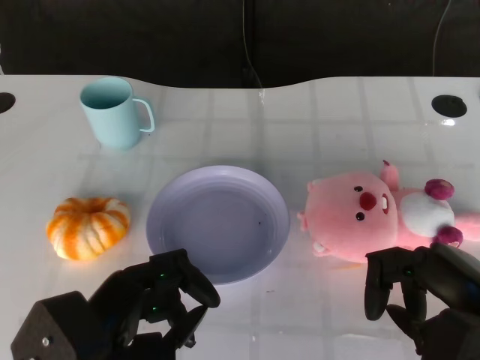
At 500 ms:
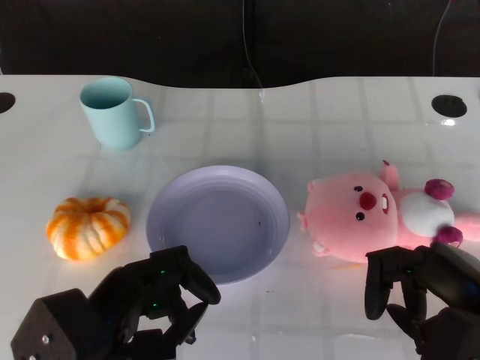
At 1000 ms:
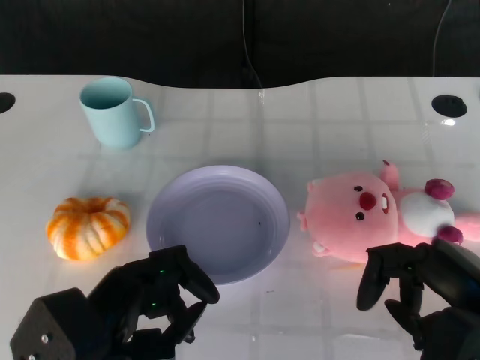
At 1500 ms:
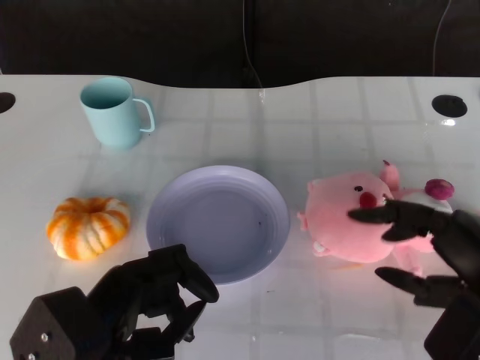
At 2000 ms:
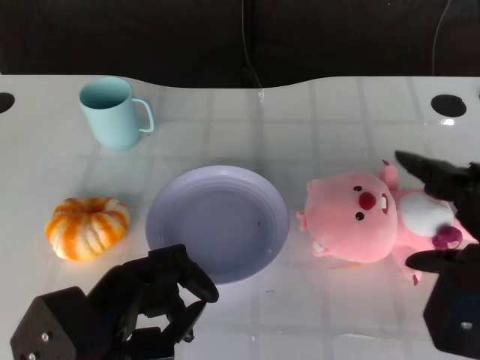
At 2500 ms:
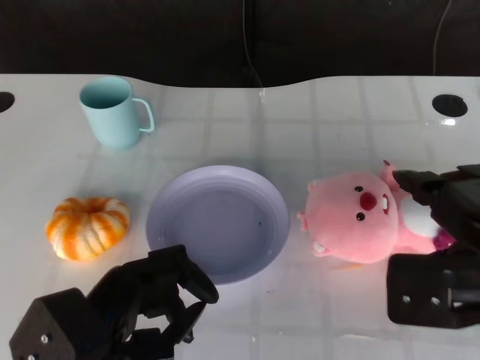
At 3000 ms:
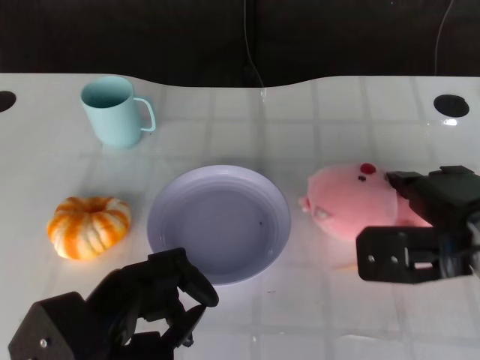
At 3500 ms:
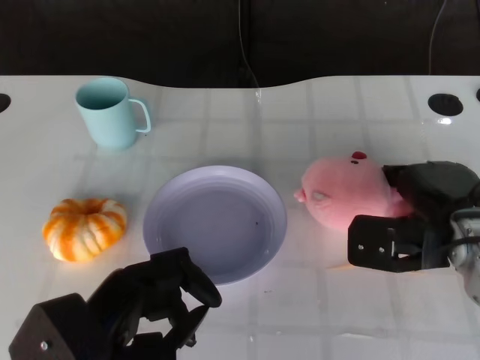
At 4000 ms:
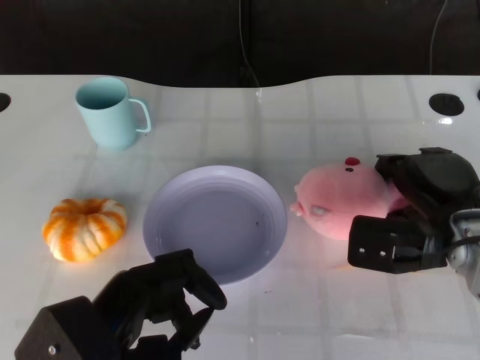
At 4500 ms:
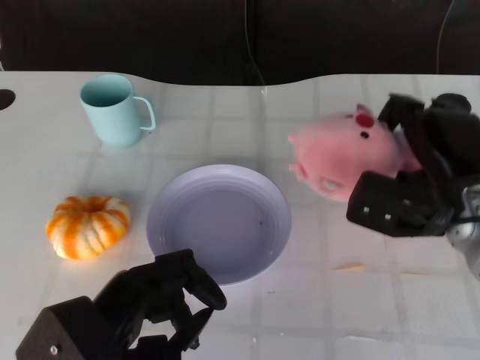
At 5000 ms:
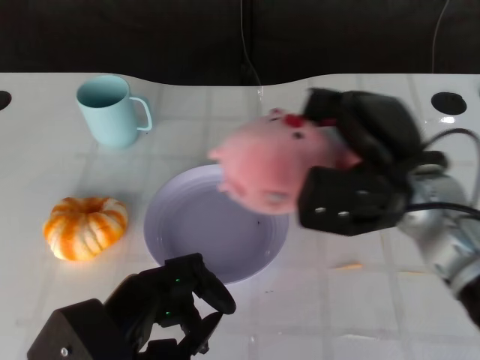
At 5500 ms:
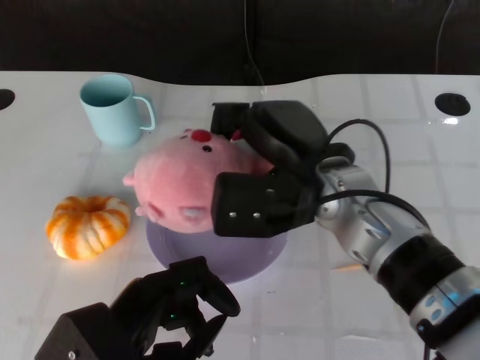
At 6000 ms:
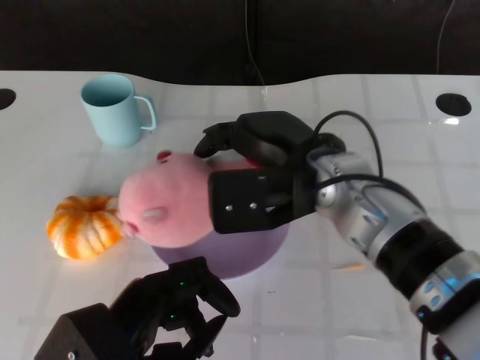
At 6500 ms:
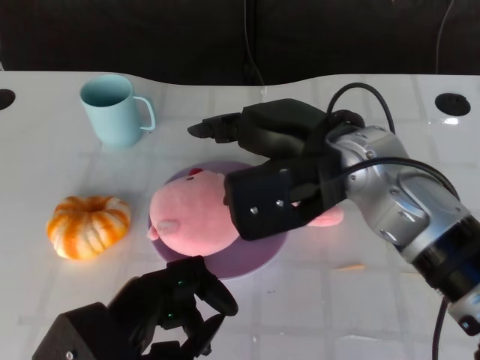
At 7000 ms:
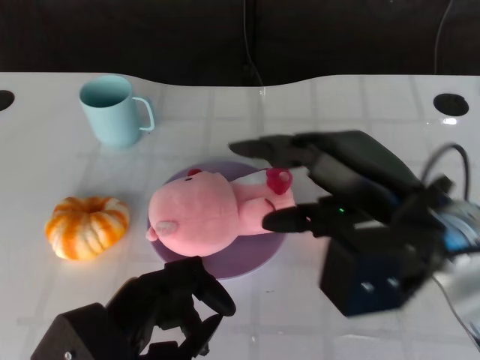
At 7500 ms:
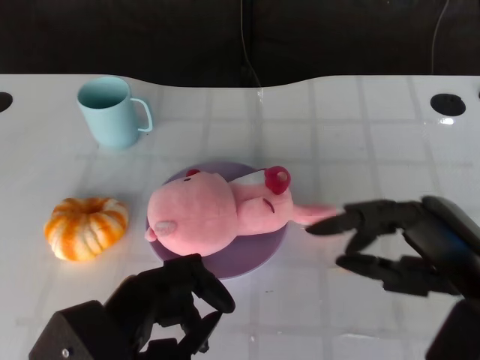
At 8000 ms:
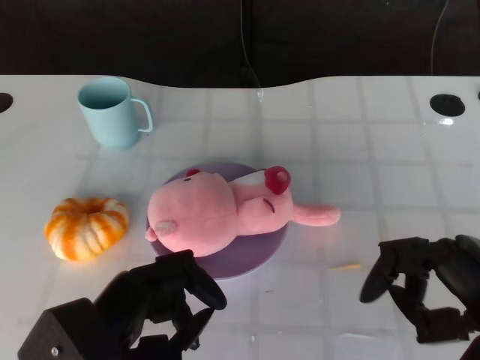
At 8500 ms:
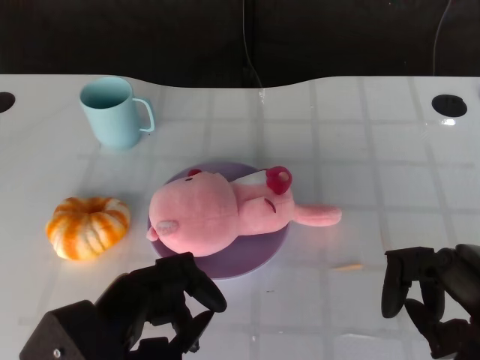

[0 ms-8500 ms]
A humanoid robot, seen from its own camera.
Task of the whole recording: Pick up the doll on the other side of the plate and place it into the plate.
Step, 1000 ms to 4000 ms: Grasp the pink doll with the right gripper.
Step, 4500 ms to 6000 ms: Place the pink doll into the plate with the right gripper.
2000 ms to 4000 ms: The right hand heads forward and downward, covering roughly 15 cm.
4000 ms to 6500 ms: The right hand travels upward and to the left by some 15 cm.
6500 ms to 8500 ms: The right hand travels to the right, backward and downward by approximately 25 cm.

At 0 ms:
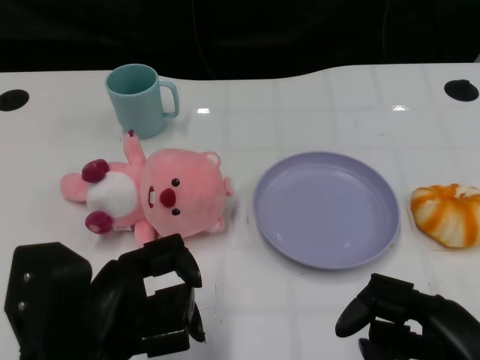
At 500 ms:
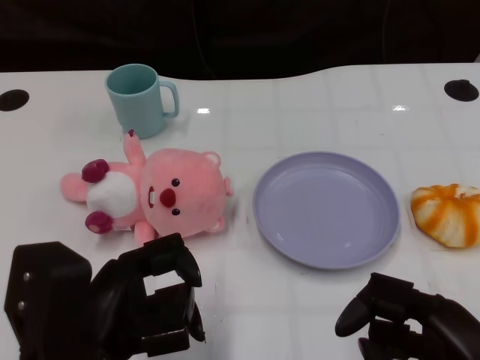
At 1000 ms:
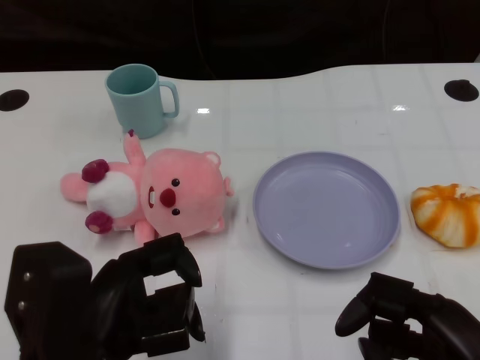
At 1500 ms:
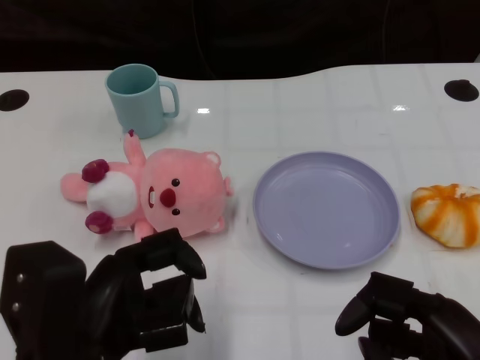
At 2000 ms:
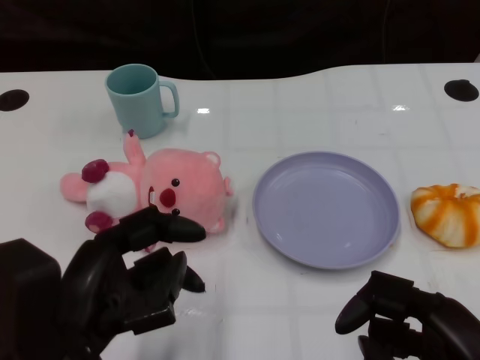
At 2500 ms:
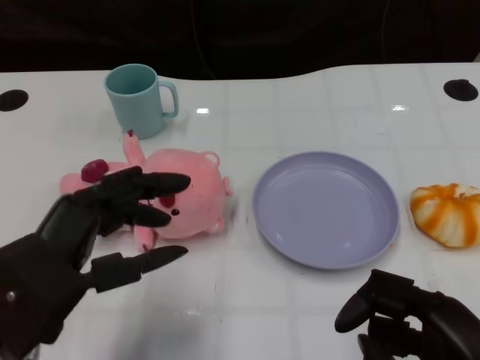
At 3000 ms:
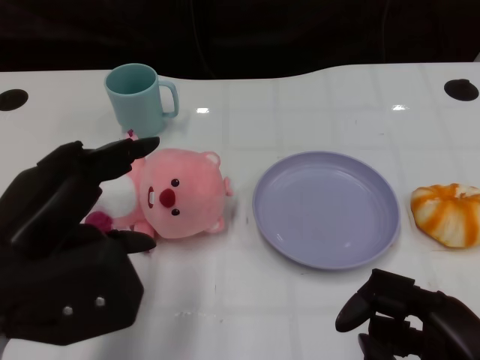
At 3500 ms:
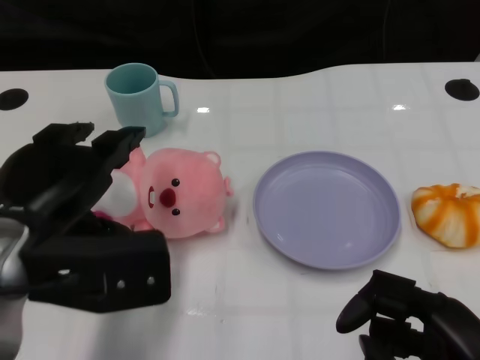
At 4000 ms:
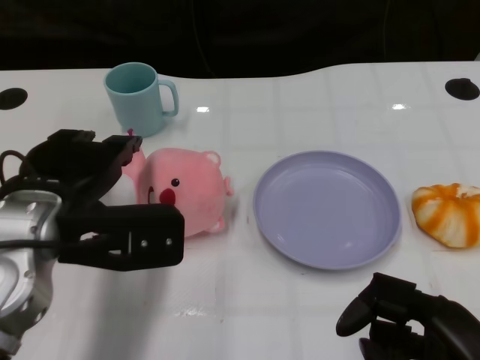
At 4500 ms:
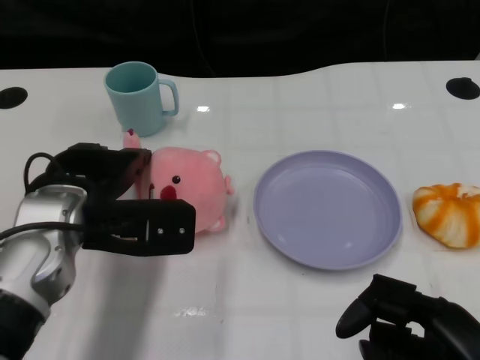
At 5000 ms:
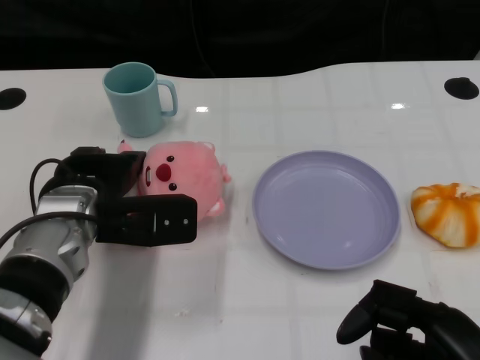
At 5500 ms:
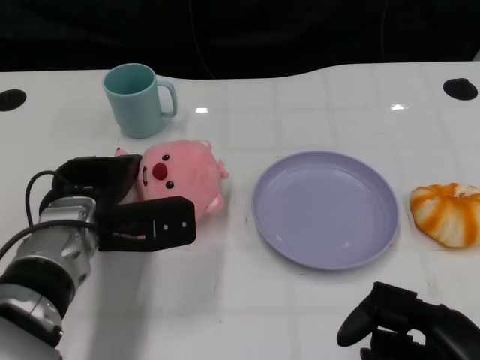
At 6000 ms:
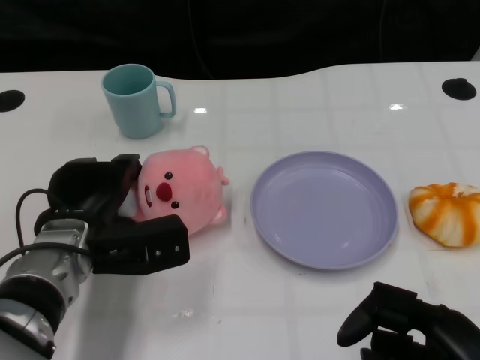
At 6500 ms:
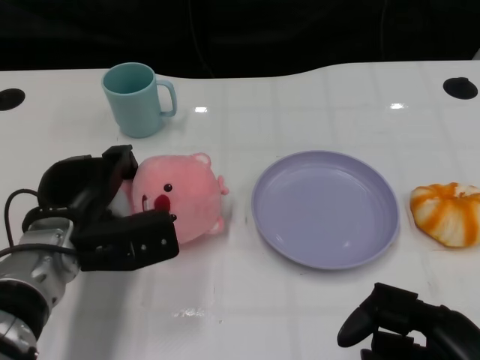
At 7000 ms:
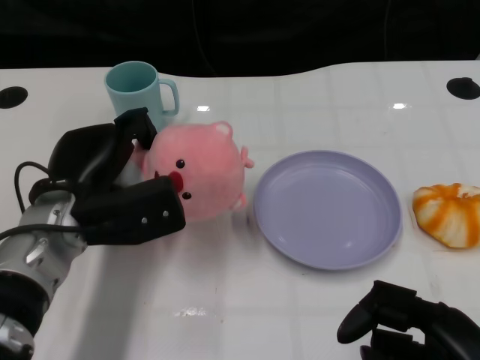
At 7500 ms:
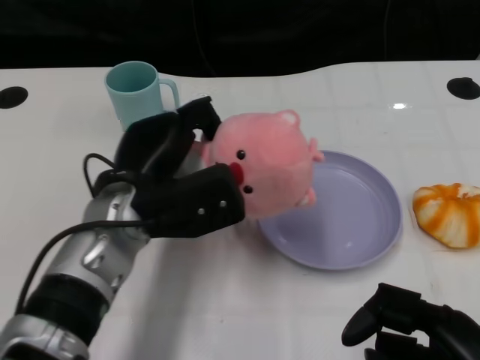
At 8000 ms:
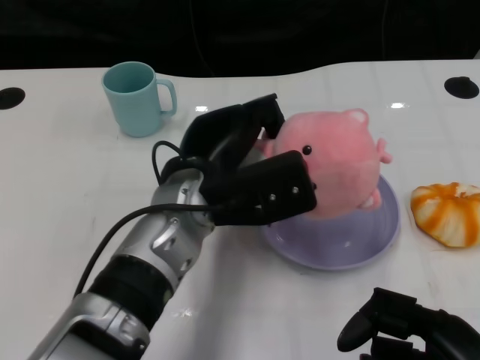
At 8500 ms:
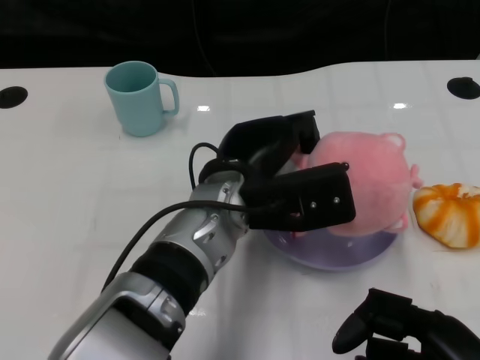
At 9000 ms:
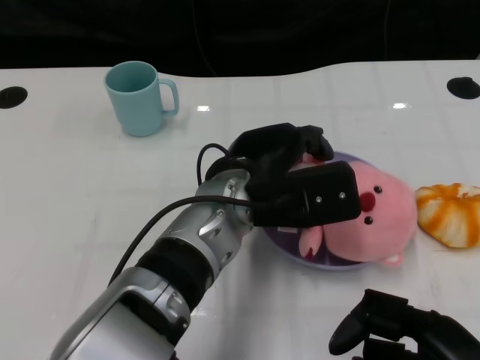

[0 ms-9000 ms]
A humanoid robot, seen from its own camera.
Task of the whole recording: Pick up the doll on one side of the plate and place it into the plate.
Step, 1500 ms to 6500 ms: Grasp the pink doll with the left gripper.
2000 ms to 4500 ms: The left hand heads forward, covering roughly 15 cm.
7000 ms to 9000 ms: The left hand moves to the right, roughly 15 cm.

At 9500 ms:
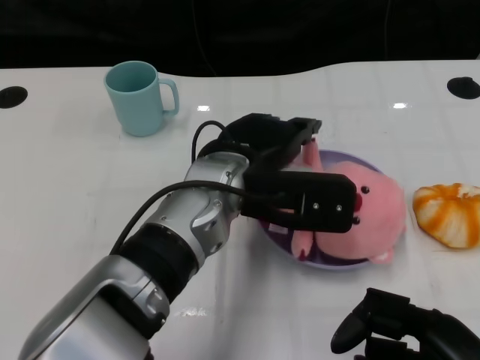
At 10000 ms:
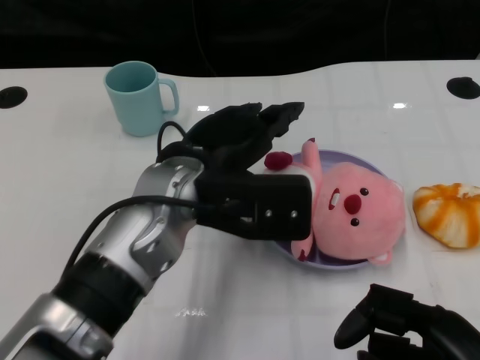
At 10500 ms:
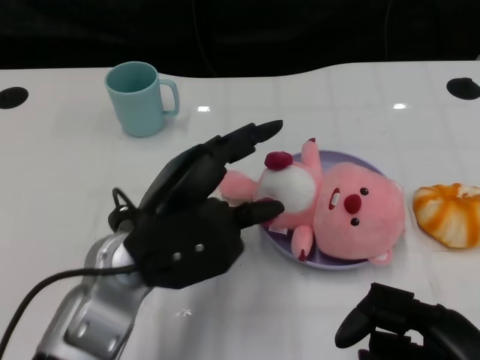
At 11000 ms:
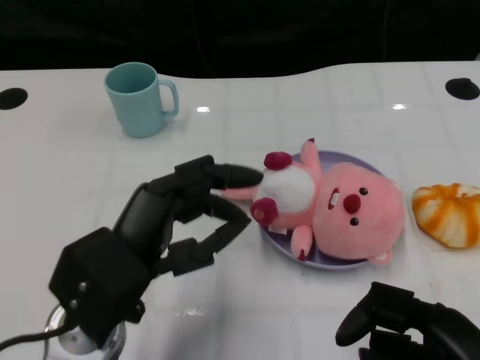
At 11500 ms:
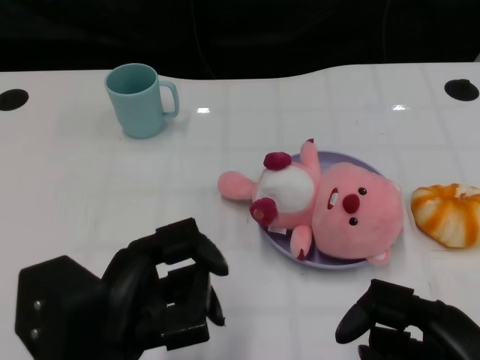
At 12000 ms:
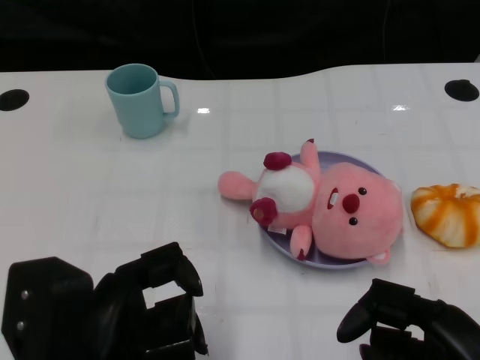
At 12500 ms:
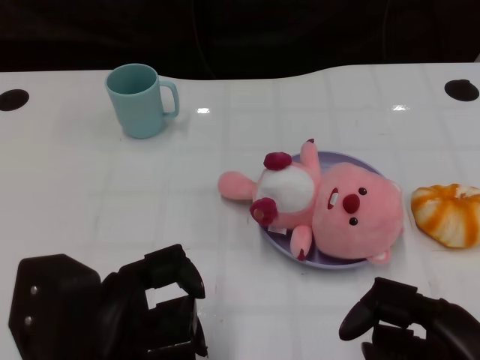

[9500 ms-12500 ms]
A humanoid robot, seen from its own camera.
Task of the whole recording: Pick up the doll on one side of the plate and place it into the plate.
9500 ms to 11000 ms: The left hand is displaced to the left and backward by approximately 15 cm.
11000 ms to 12500 ms: The left hand shifts about 5 cm backward.

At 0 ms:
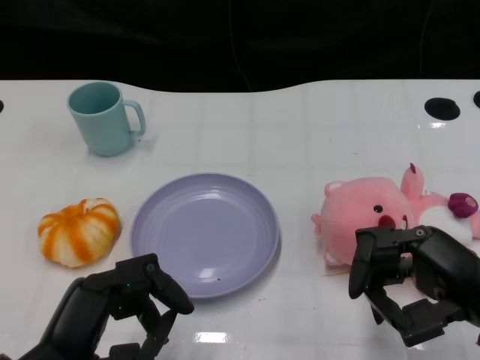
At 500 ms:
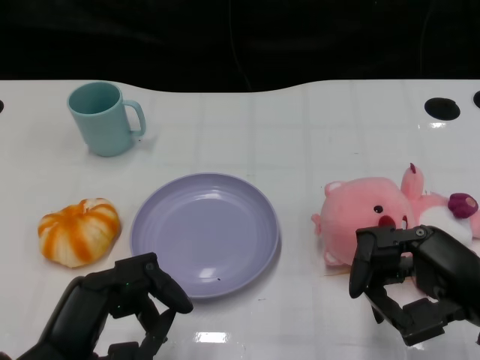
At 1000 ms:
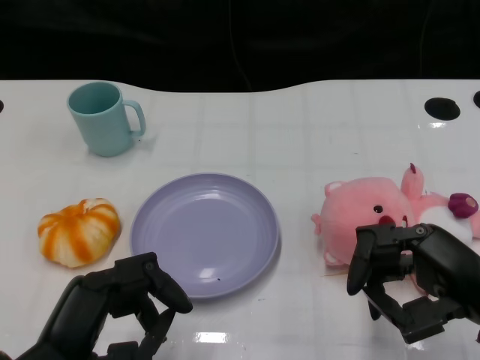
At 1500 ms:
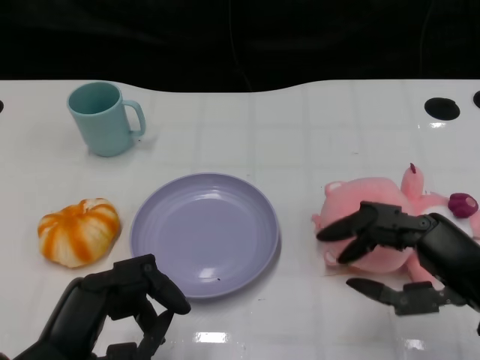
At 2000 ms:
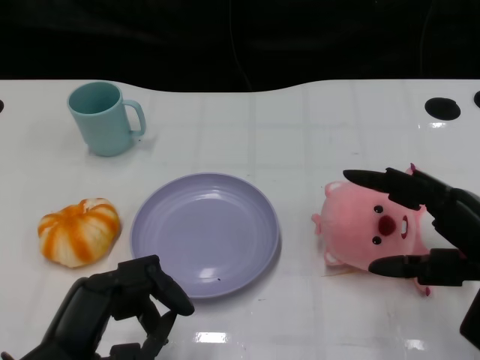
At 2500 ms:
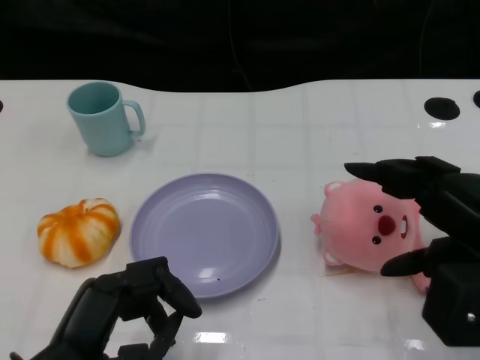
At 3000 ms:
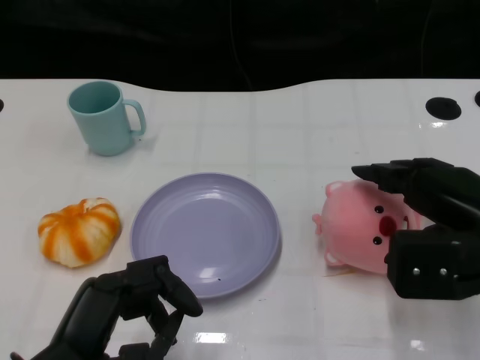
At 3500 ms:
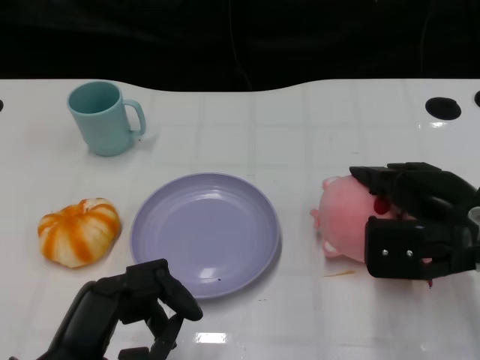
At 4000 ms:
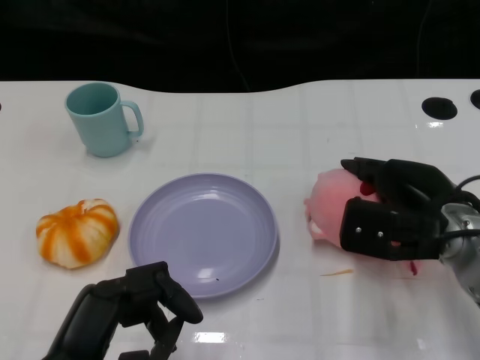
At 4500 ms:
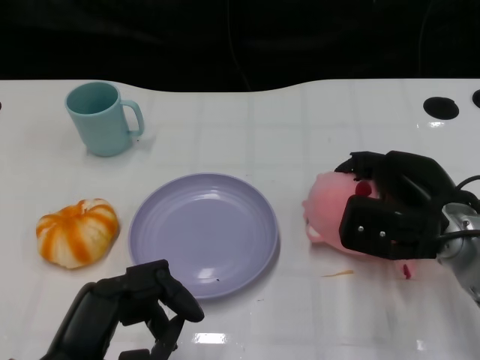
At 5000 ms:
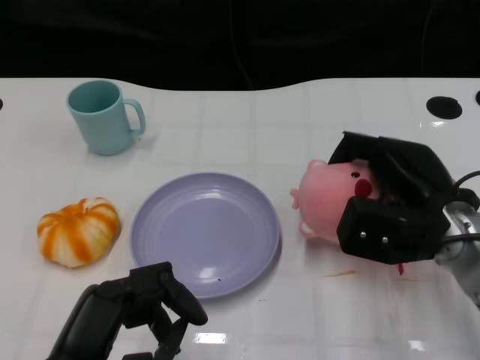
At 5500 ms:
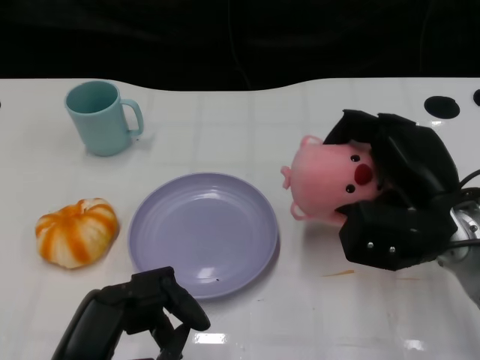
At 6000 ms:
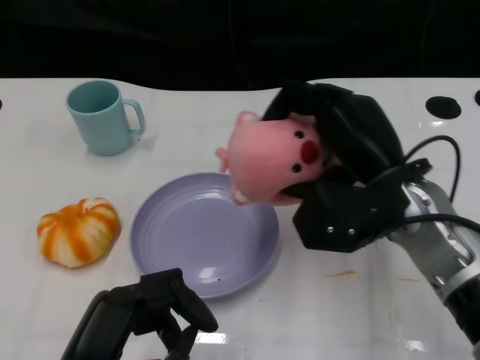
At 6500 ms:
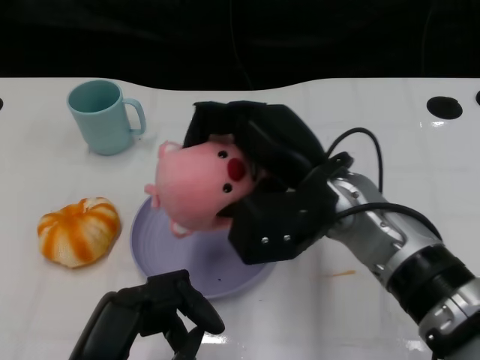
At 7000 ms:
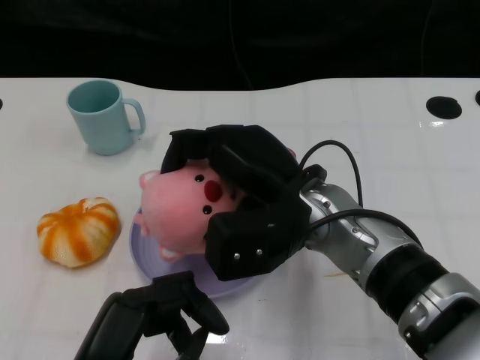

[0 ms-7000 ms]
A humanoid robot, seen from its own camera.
Task of the whole recording: Pick up the doll on the other side of the plate and place it into the plate.
Step, 1000 ms to 6000 ms: Grasp the pink doll with the right gripper.
2000 ms to 3500 ms: The right hand travels forward by about 10 cm.
5000 ms to 7000 ms: The right hand goes roughly 15 cm to the left.
